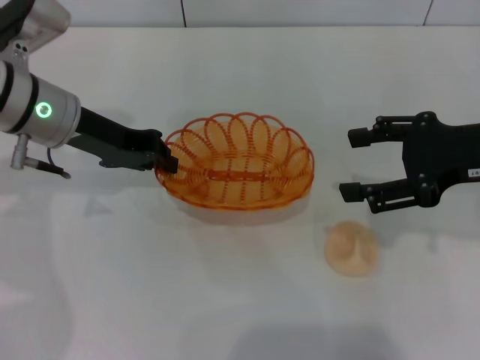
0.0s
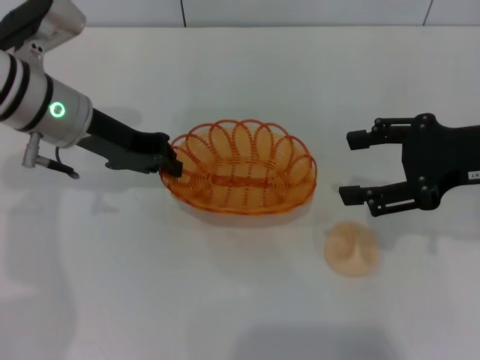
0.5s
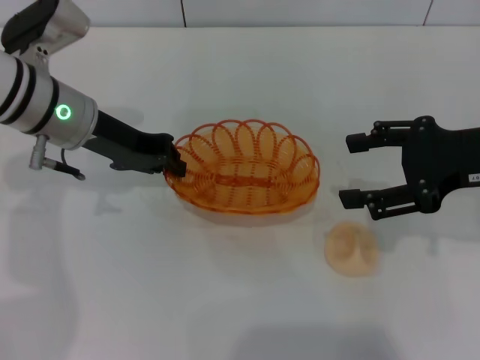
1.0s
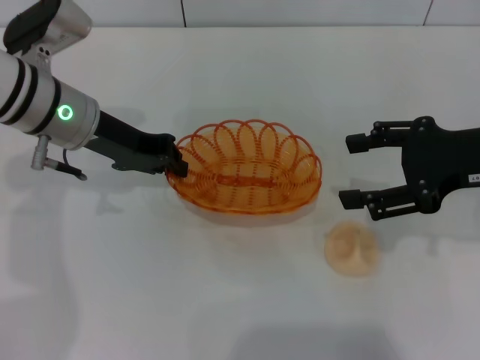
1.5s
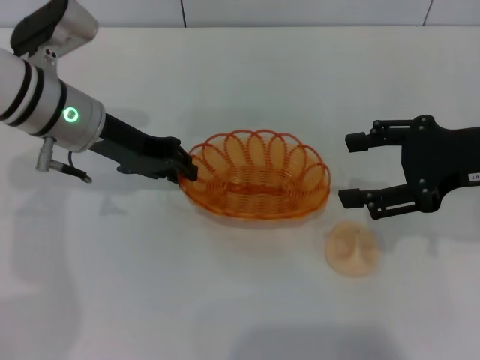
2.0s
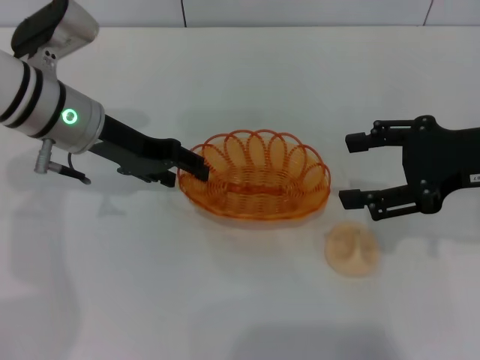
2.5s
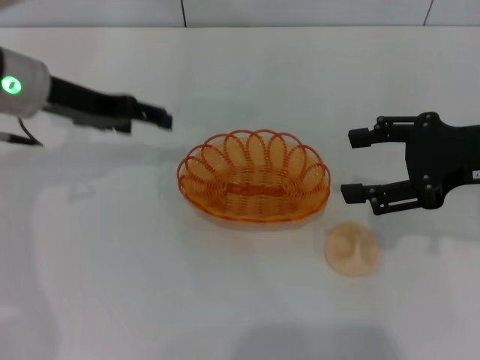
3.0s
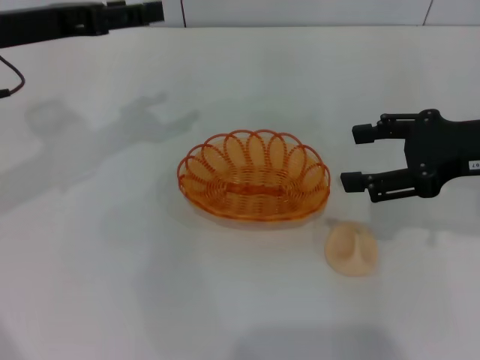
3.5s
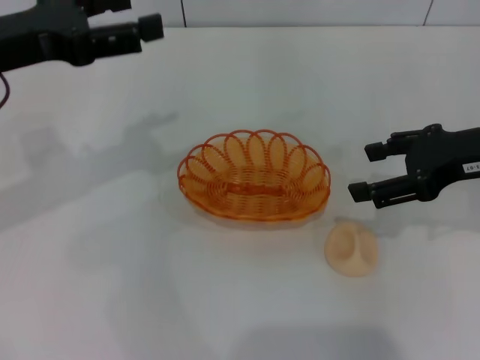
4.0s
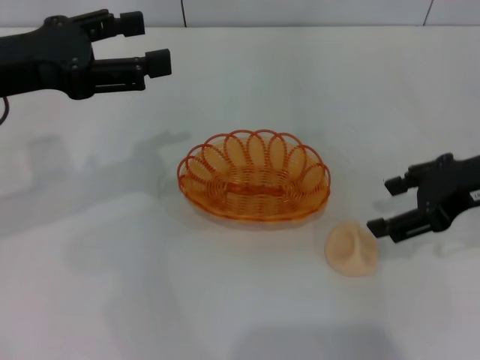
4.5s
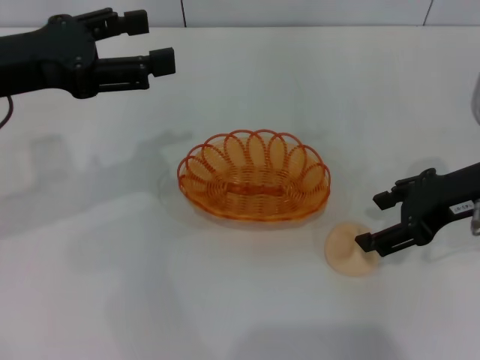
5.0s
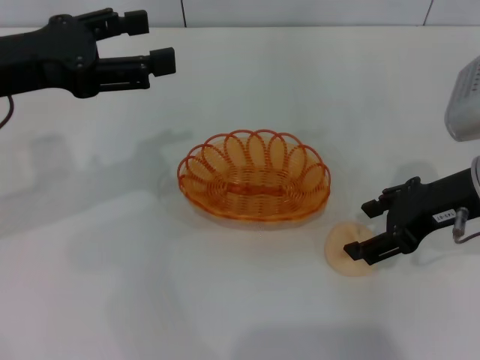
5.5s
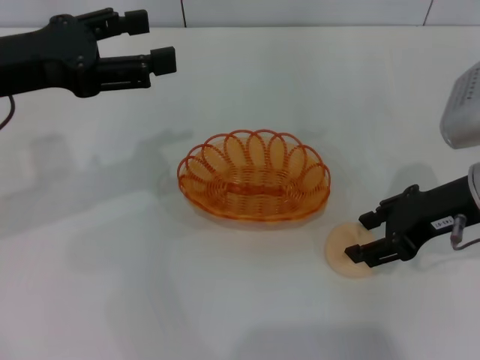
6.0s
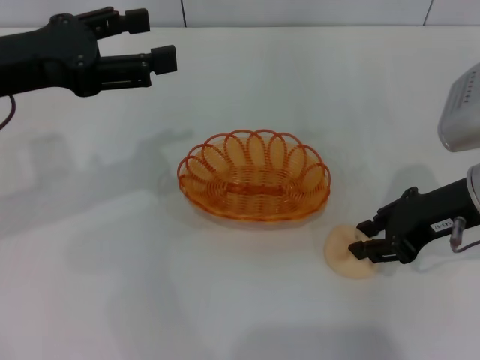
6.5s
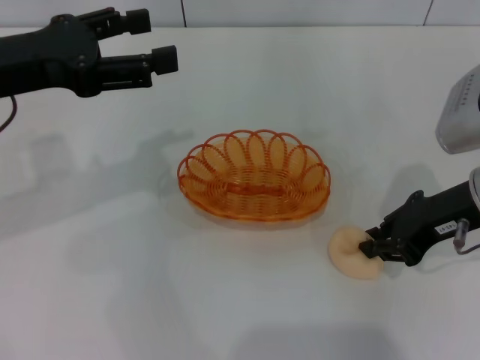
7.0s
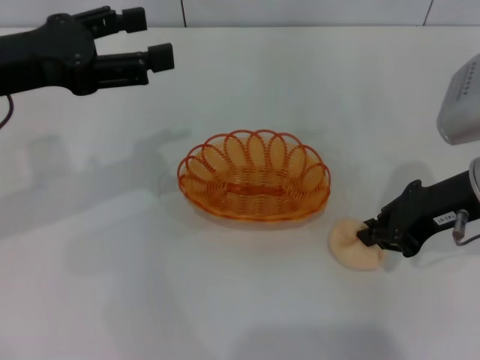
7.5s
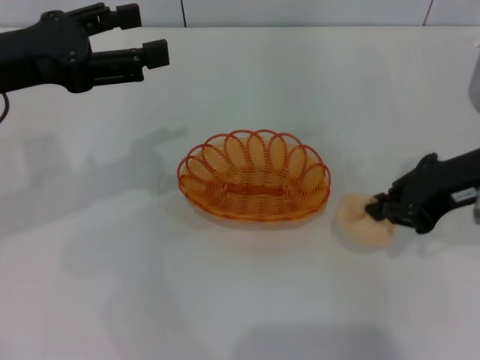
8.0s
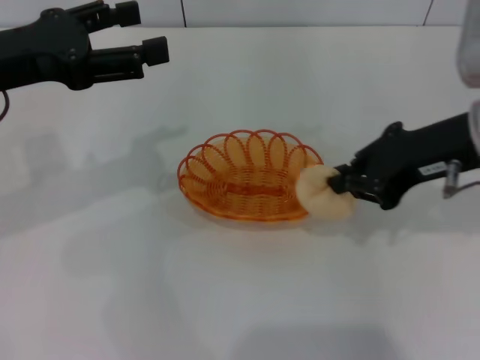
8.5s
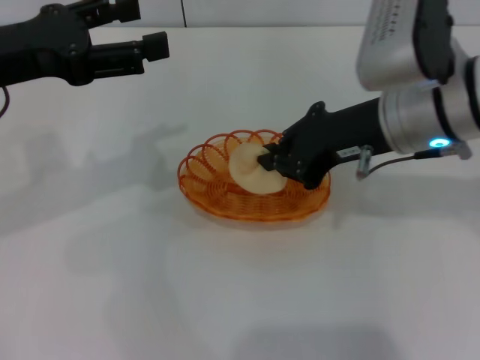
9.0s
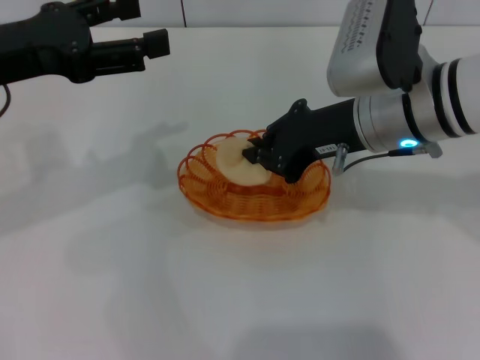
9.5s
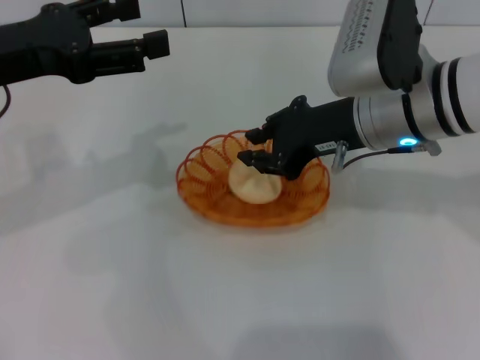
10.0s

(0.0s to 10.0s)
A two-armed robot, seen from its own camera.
Step, 0.0s - 2.5s: Place the basket in the center of view with the left gripper.
Step, 3.0s - 8.0s: Pick up the egg yolk pastry with the right gripper.
0.0s - 2.0s: There are only small adjustments of the grippers.
2.0s - 4.0s: The left gripper shifts about 10 cm to the left, upward and backward, and opens.
4.0s - 6.0s: The grippers make only small movements.
6.0s - 8.0s: The right gripper closes its fingers.
8.0s - 10.0s: The right gripper is displaced to the left by some 10 cm.

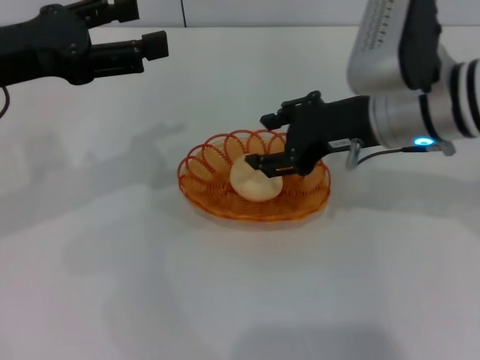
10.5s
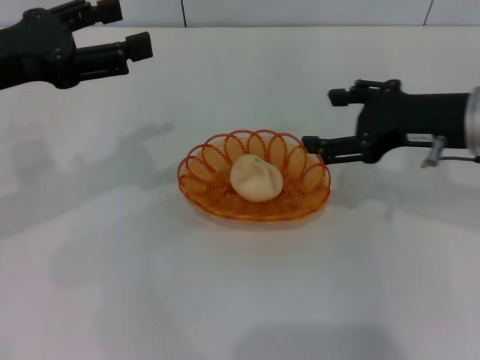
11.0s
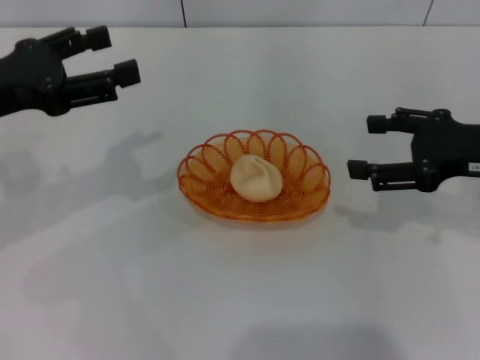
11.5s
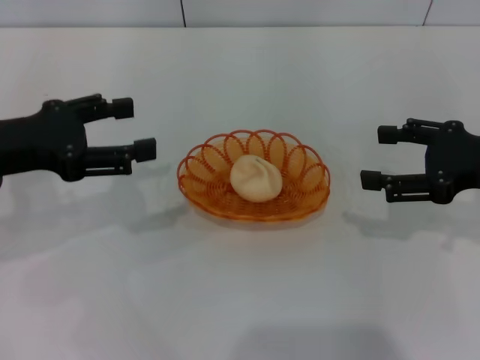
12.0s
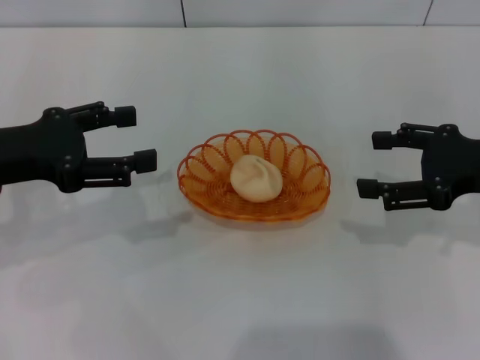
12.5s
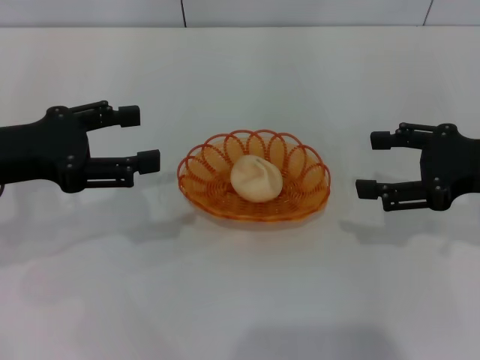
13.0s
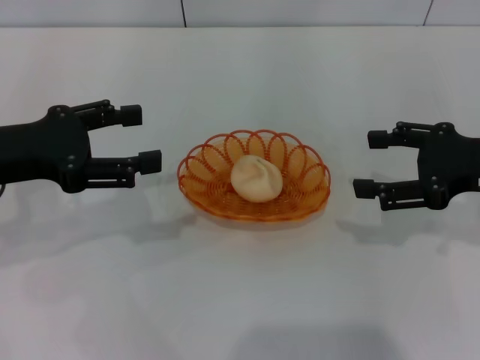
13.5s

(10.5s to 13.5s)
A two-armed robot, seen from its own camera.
10.5s - 12.0s: The left gripper ends up about 5 cm from where it was. Meanwhile the right gripper moves to the right, about 15 cm, and opens up.
12.0s - 13.5s: The two grippers keep their place.
